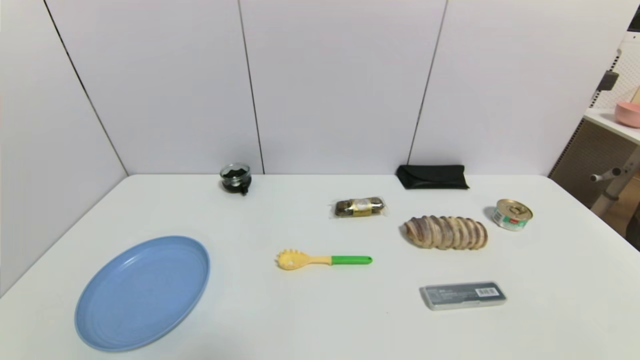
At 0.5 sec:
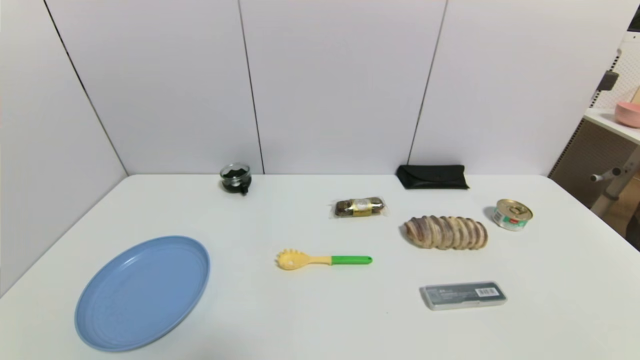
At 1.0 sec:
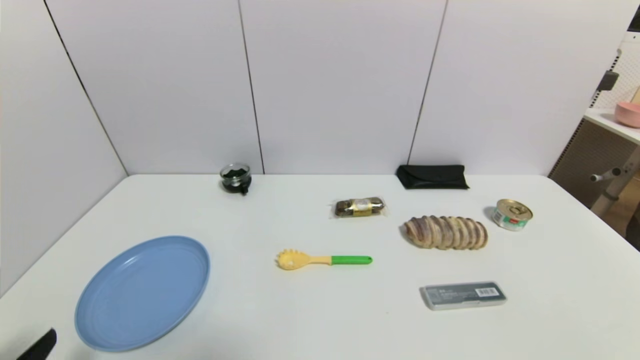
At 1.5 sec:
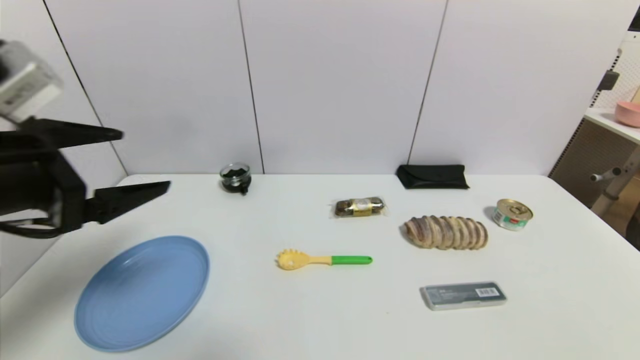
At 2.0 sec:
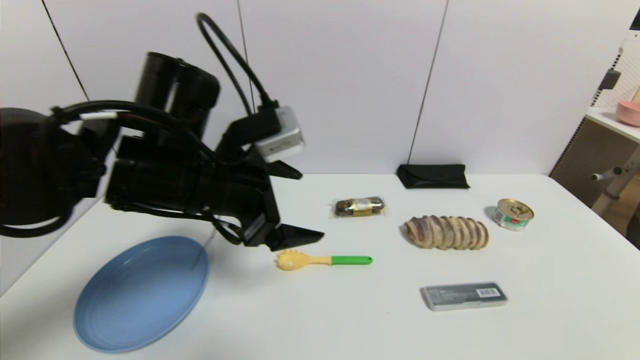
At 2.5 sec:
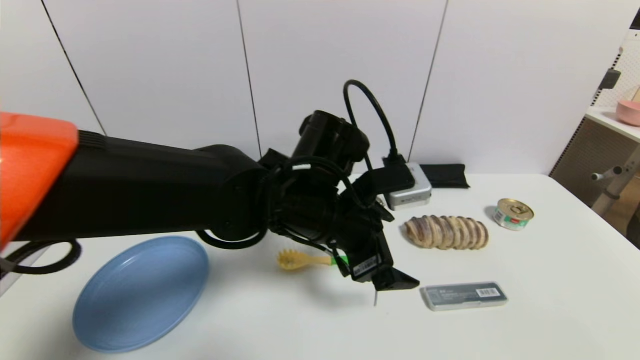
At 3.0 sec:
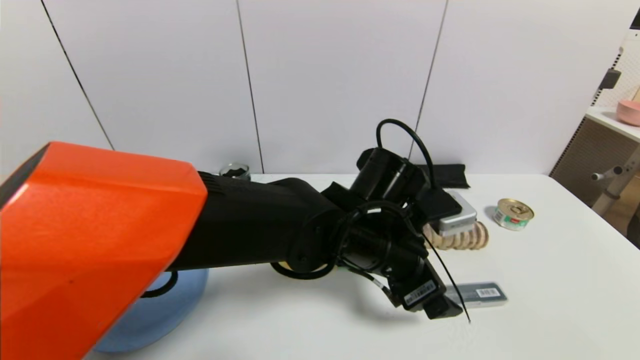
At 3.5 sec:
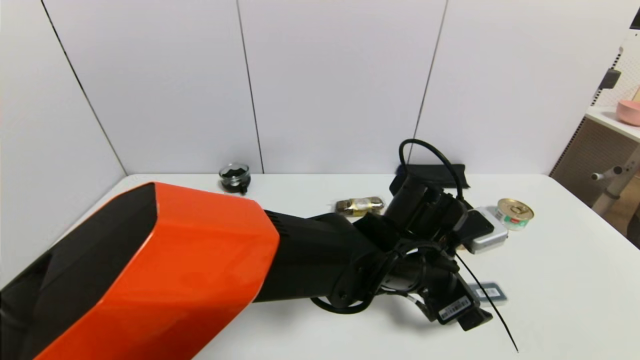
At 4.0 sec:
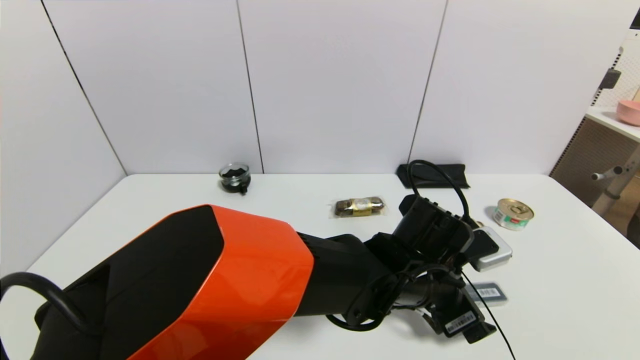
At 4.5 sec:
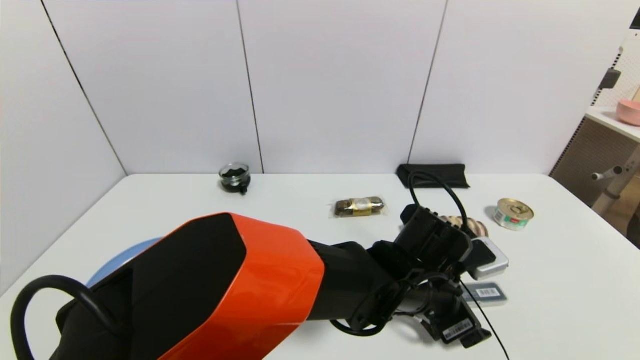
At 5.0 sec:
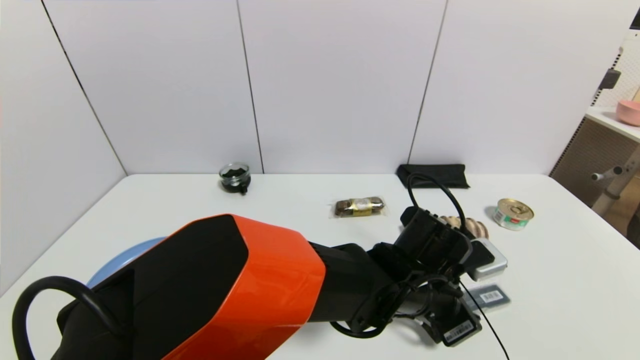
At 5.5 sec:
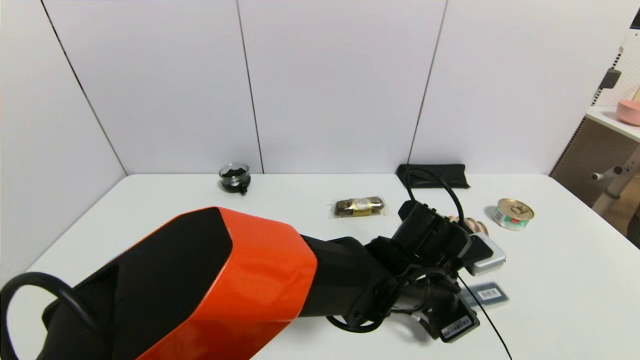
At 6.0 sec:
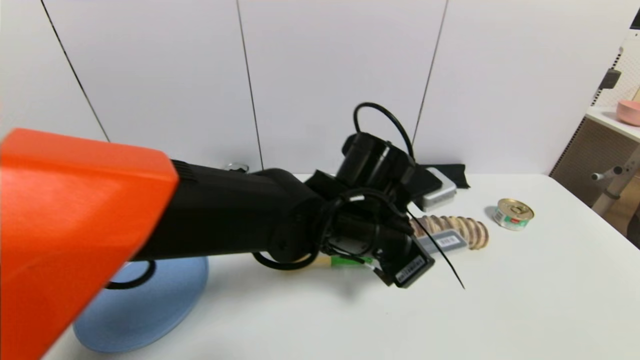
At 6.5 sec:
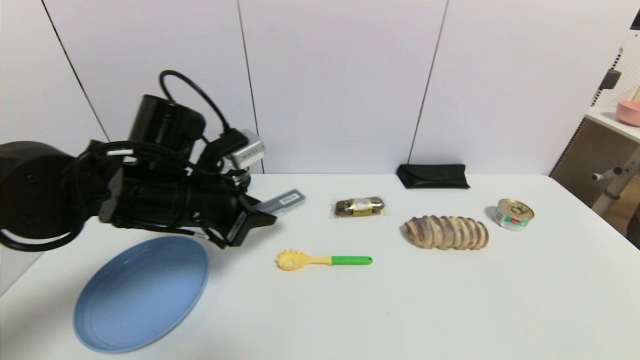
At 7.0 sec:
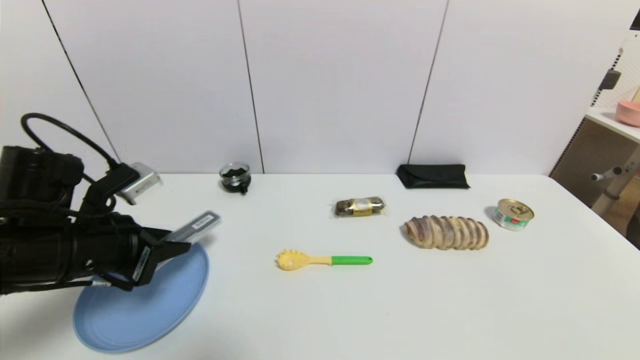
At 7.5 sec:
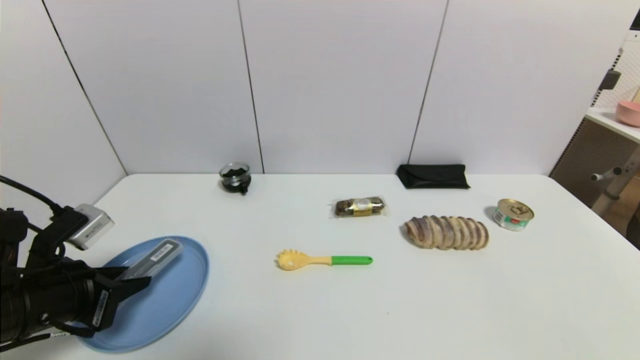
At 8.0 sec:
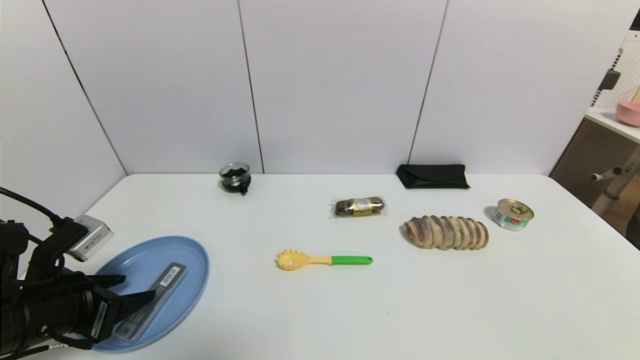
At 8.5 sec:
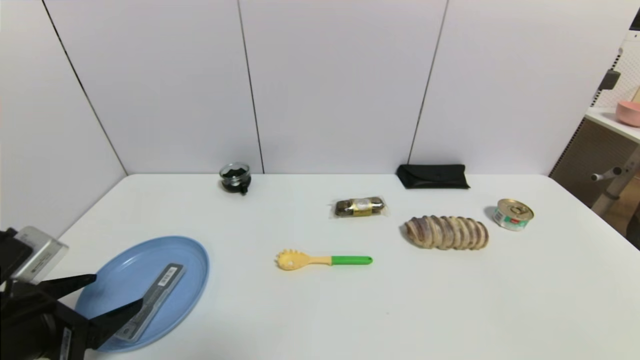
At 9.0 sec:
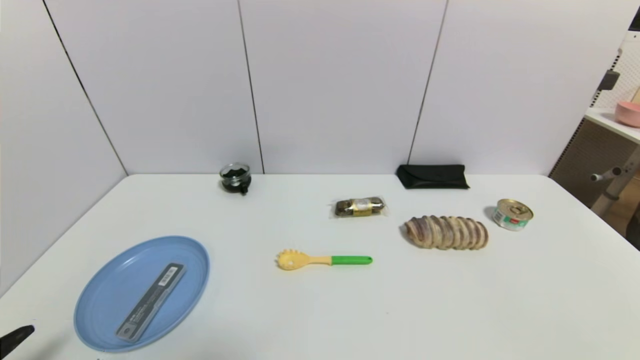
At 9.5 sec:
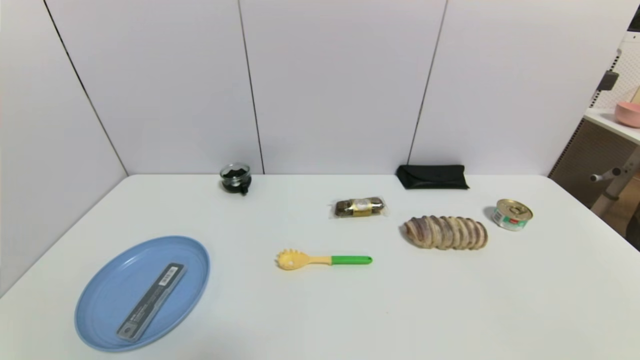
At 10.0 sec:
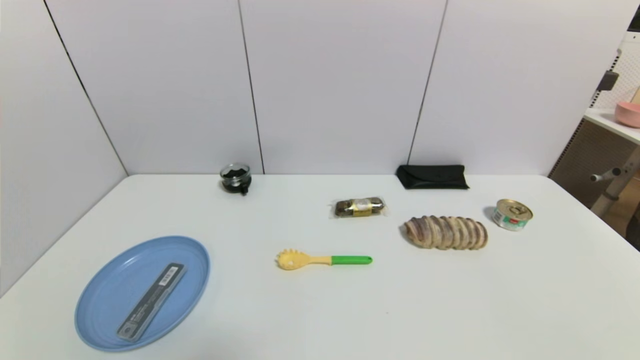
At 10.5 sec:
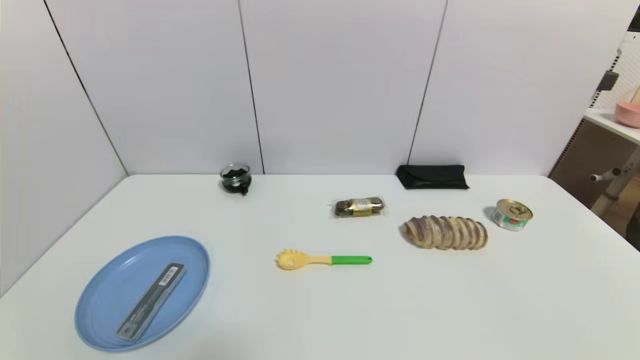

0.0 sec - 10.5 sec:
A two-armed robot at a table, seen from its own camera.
Task of the whole recording: use a gripper to pick the target object and place on the blue plate.
Step, 0.0 sec - 5.0 sec: Grasp the compasses with the left gripper.
Step, 5.5 sec - 8.5 sec: Place the compasses on the blue plate with the left gripper.
0.0 sec - 2.0 sec: The left gripper heads forward, to the right and upward, covering some 35 cm.
2.0 sec - 4.0 sec: The left gripper is displaced to the right and downward by about 25 cm.
4.0 sec - 6.5 sec: The left gripper goes approximately 30 cm to the left, and closes up.
6.5 sec - 8.5 sec: The left gripper shifts approximately 20 cm backward, to the left and downward, and opens.
8.5 sec - 10.5 sec: The left gripper shifts roughly 15 cm backward and downward.
